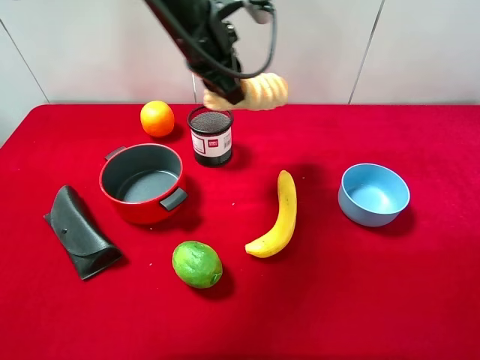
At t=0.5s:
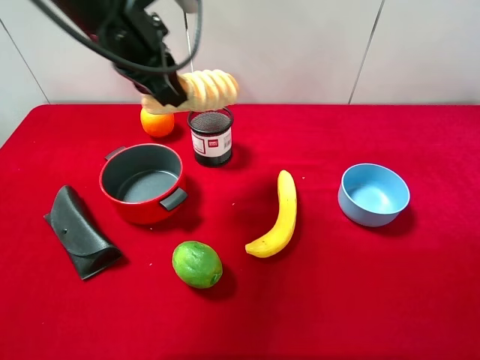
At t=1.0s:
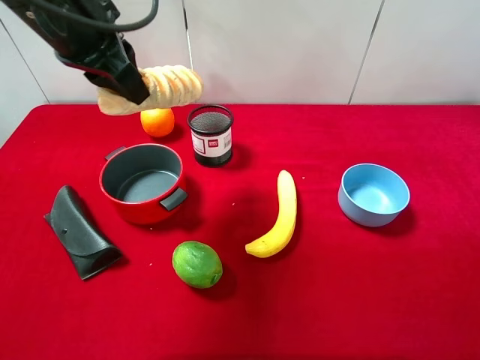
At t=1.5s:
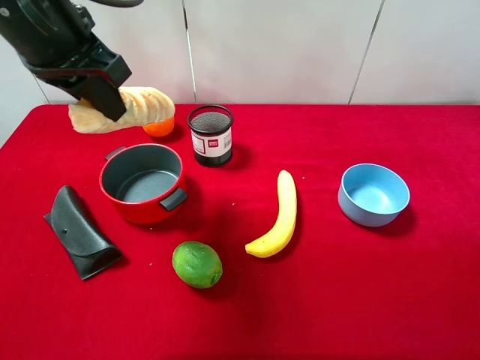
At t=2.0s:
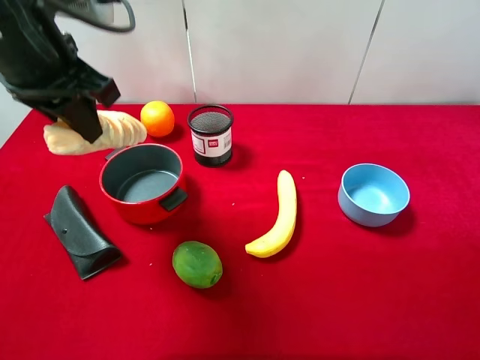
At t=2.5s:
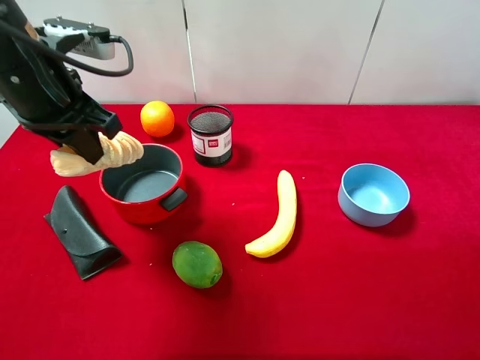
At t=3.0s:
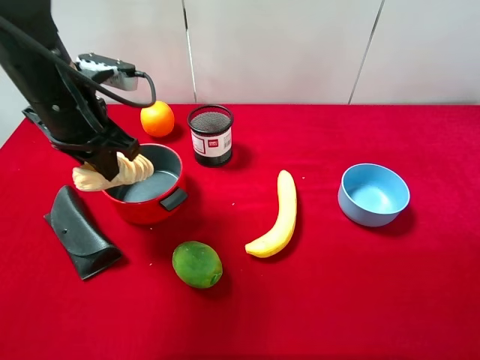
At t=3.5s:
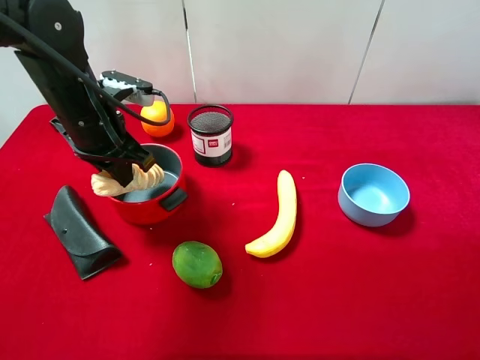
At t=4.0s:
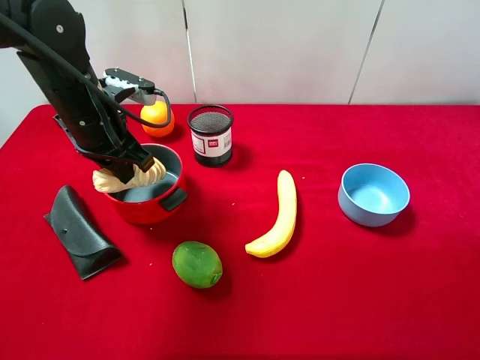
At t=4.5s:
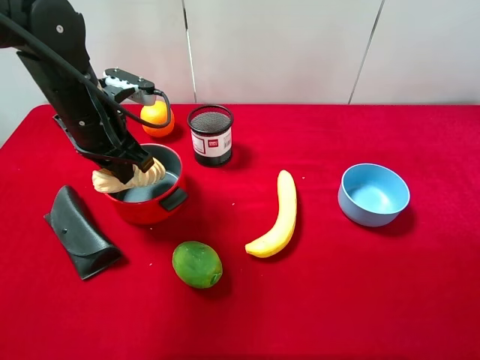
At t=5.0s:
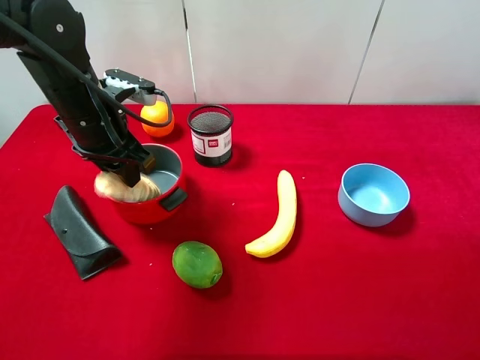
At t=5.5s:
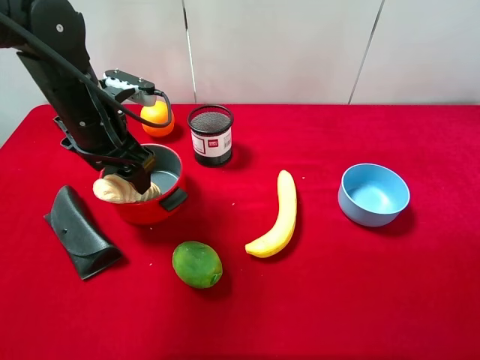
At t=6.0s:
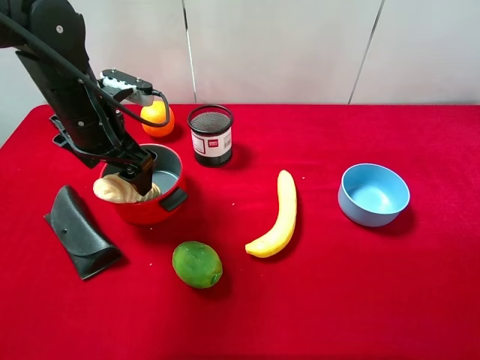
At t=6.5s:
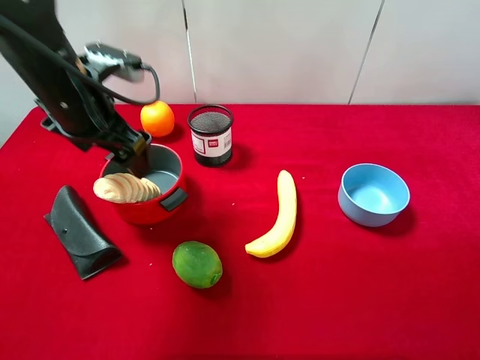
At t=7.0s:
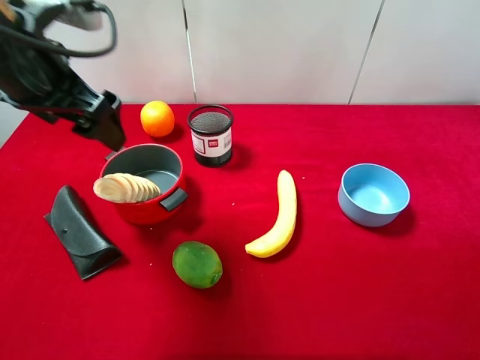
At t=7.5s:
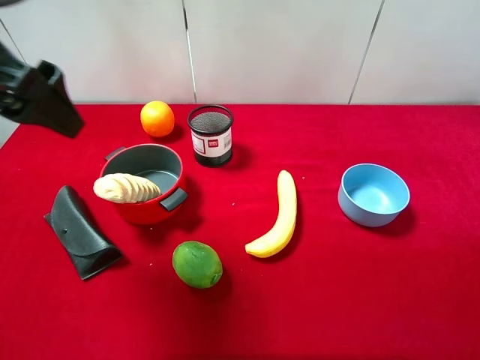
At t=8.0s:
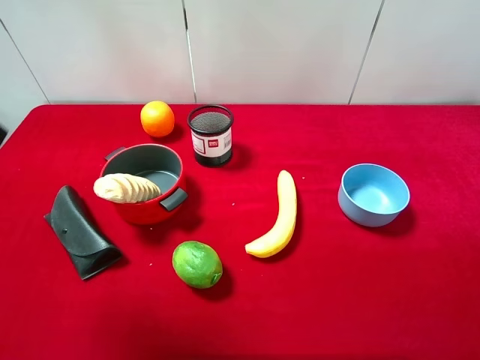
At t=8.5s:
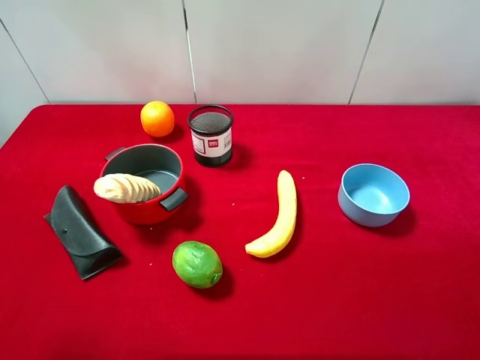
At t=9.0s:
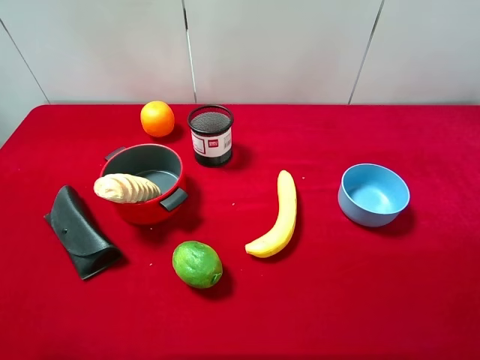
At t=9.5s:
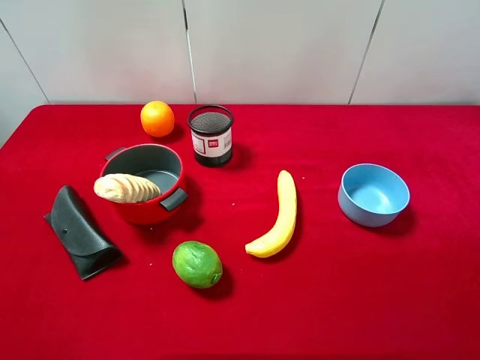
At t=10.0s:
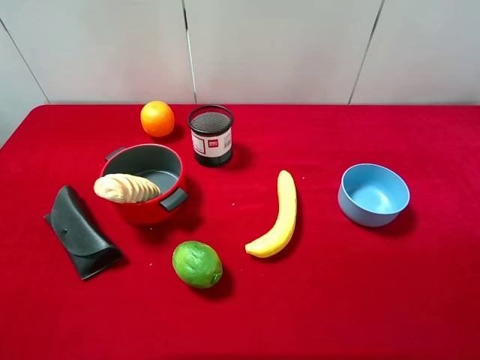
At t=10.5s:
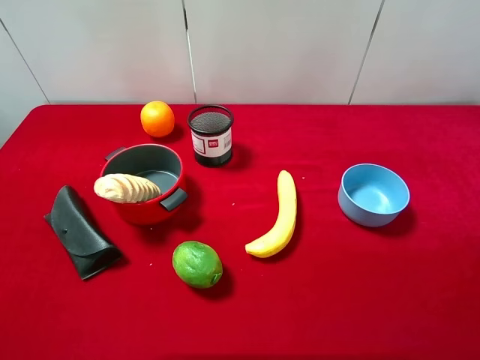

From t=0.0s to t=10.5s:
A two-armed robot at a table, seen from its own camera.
Task of the whole recording: pick up an item with a gripper and place it in a random container on the desktop.
From t=0.0s to t=2.0s: The left gripper moves to the left and backward, roughly 15 cm.
From t=2.0s to t=4.0s: The left gripper is displaced downward by about 10 cm.
From t=4.0s to t=6.5s: The left gripper opens.
From t=6.5s to t=8.5s: The left gripper is displaced backward and to the left by some 25 cm.
